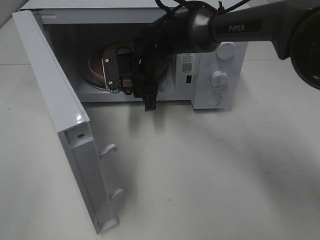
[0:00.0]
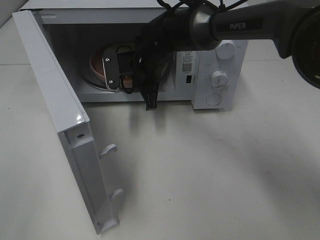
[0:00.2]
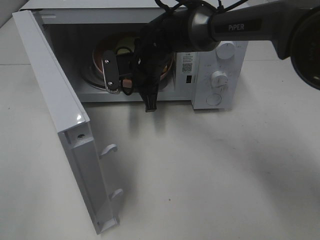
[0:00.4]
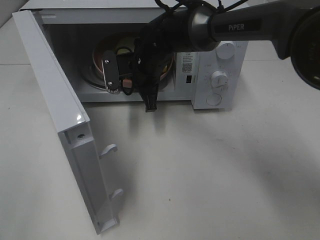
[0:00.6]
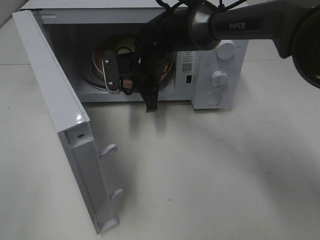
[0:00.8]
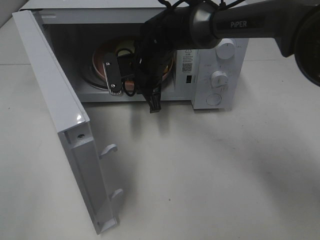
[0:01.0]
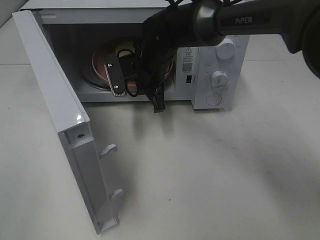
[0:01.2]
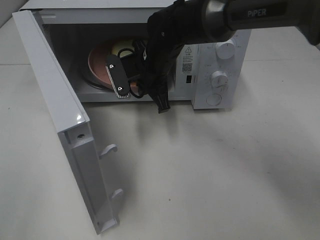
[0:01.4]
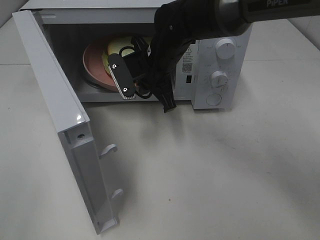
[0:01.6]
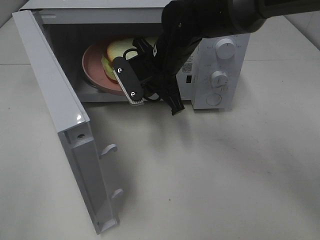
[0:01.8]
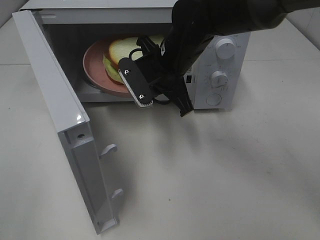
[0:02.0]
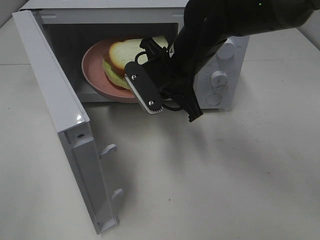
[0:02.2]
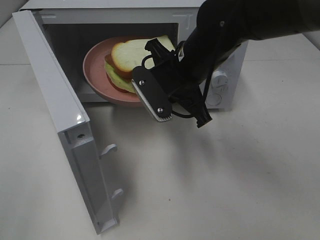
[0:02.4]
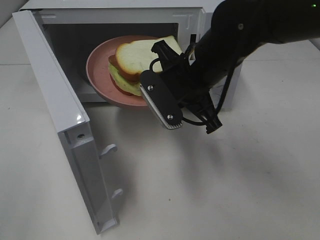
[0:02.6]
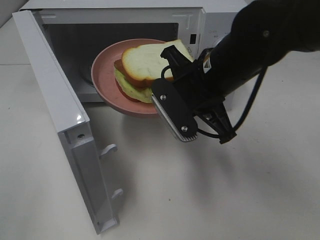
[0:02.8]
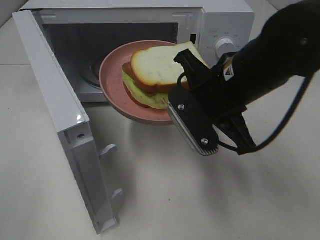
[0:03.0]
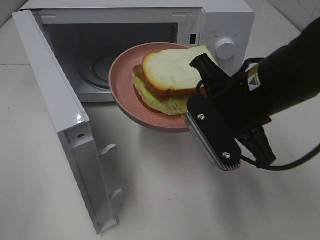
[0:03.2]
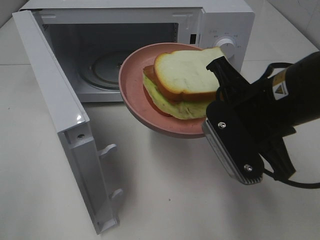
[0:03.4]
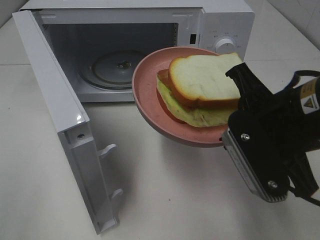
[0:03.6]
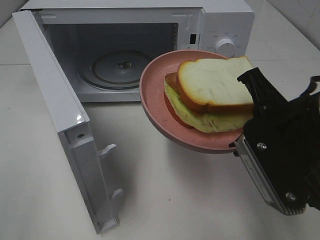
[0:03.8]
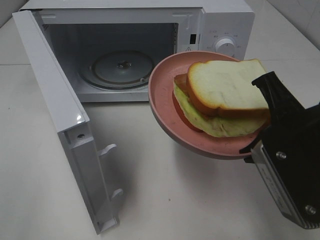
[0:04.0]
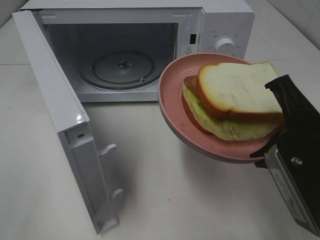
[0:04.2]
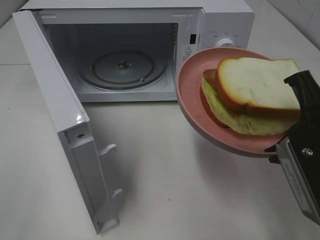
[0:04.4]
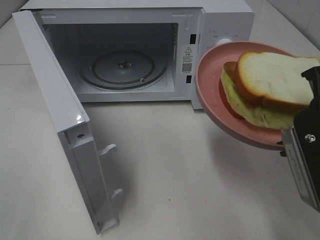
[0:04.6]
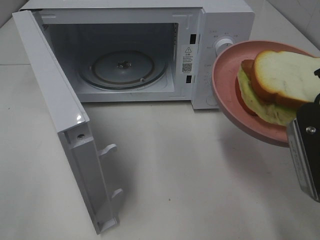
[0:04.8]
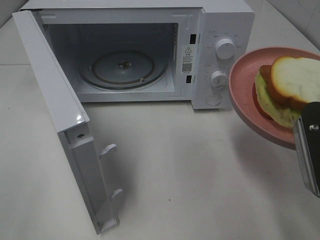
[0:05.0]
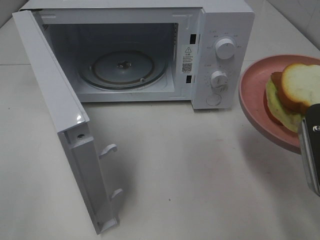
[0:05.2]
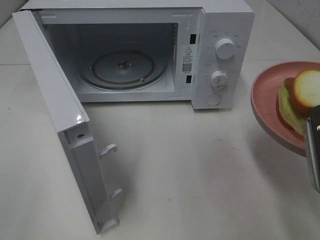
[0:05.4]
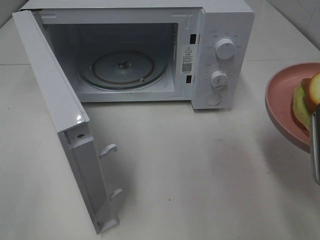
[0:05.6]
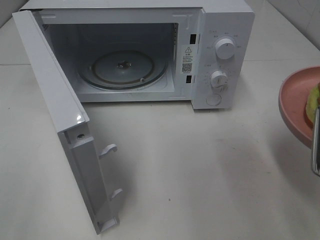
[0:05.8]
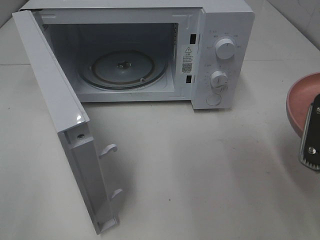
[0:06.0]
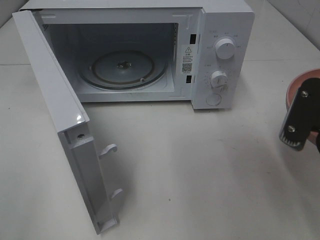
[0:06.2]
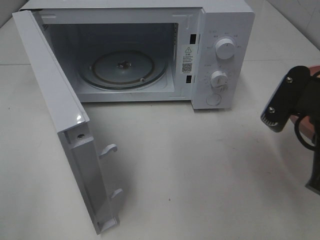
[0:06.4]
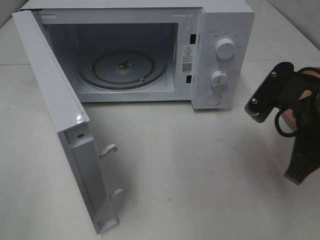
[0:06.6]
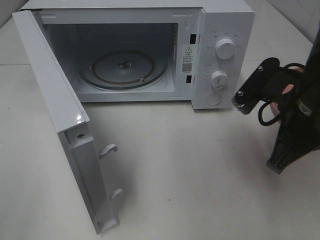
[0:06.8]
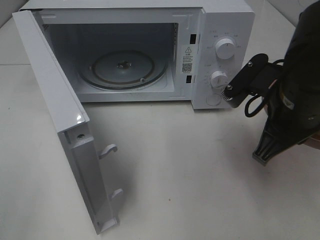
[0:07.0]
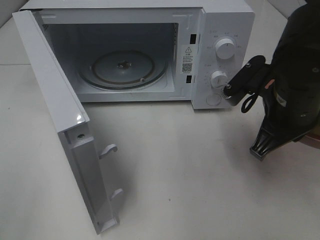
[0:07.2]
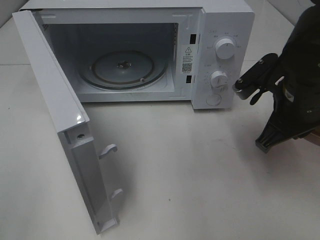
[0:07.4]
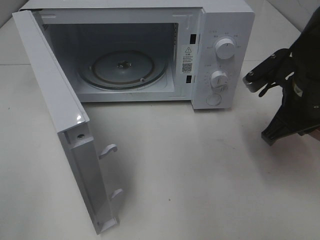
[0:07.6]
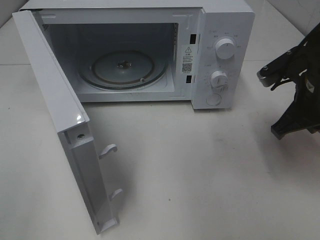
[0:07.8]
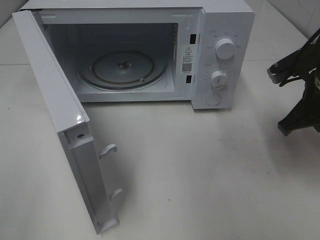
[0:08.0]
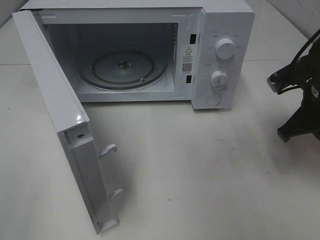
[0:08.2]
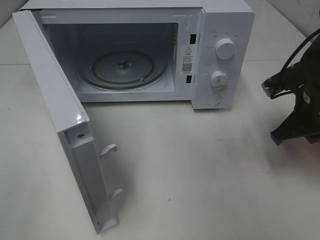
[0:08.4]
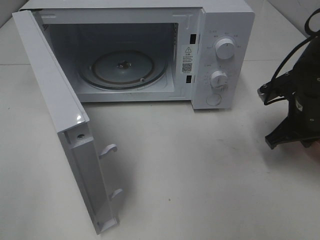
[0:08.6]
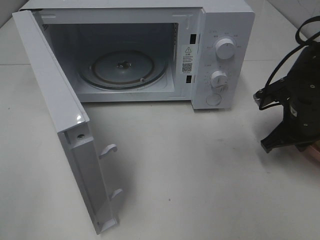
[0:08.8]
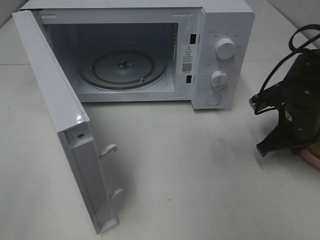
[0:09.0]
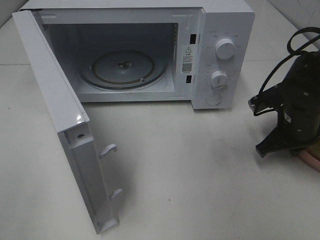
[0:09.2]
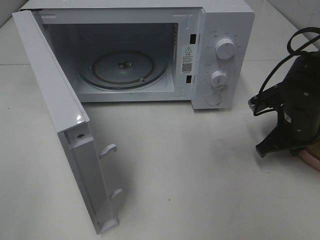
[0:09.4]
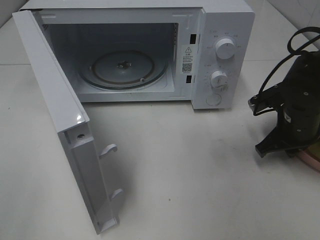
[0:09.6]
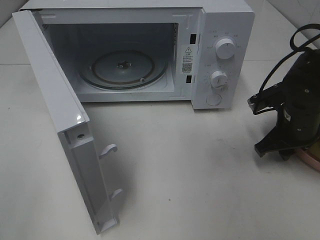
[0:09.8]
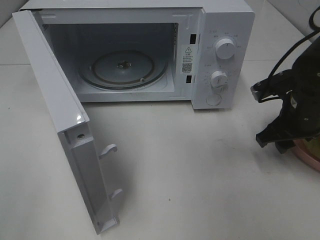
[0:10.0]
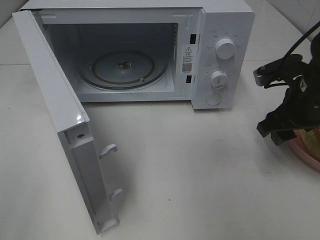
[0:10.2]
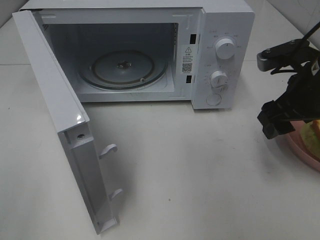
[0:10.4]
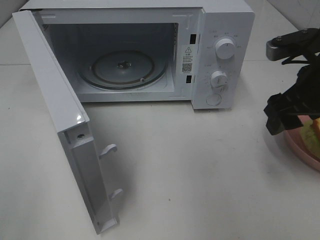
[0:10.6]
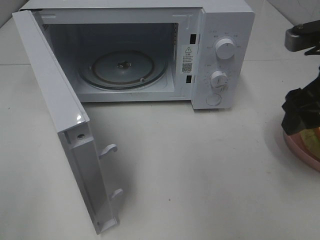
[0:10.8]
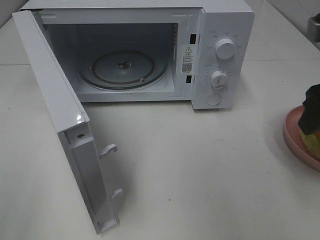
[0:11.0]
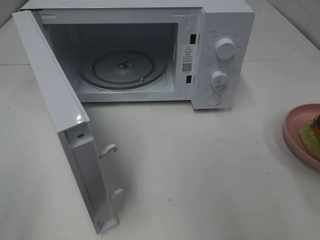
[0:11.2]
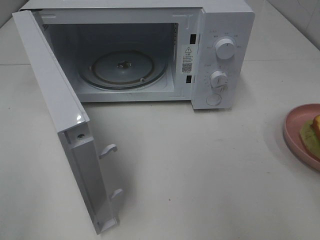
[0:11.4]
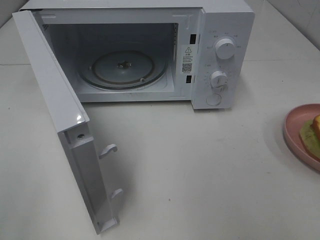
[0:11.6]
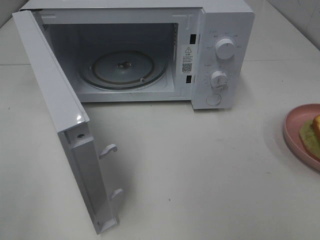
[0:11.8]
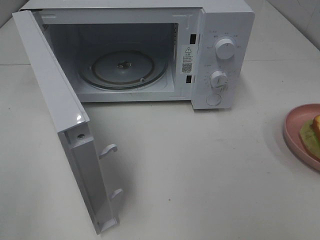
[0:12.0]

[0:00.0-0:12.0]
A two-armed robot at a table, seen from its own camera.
Task of the whole recording: Heat Sandwich.
Step, 0:00.8 to 0:09.8: Right hand: place the plate on the table.
0:00.0 to 0:01.6: The right gripper shifts by about 5 cm, and closes its fingers.
0:01.6 to 0:03.0: The right gripper heads backward and to the right, covering some 15 cm.
0:03.0 to 0:04.4: The right gripper moves backward and to the right, some 15 cm.
0:06.0 to 0:07.6: The right gripper travels forward by about 15 cm.
0:07.6 to 0:09.0: The right gripper travels downward by approximately 10 cm.
0:09.0 to 0:10.4: The right gripper goes approximately 10 cm upward, and opens up.
0:10.4 to 0:12.0: The right gripper heads backward and upward, covering roughly 25 cm.

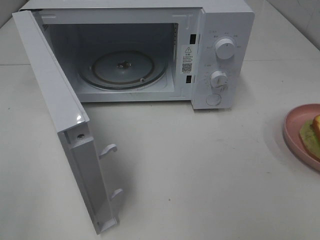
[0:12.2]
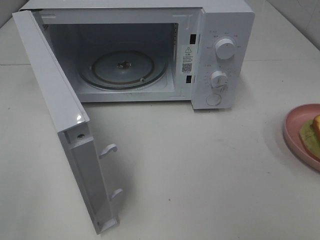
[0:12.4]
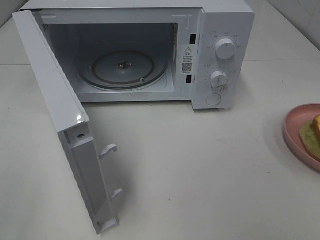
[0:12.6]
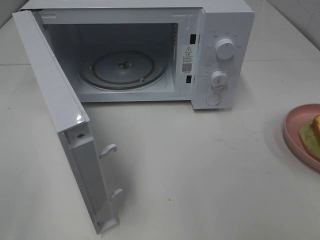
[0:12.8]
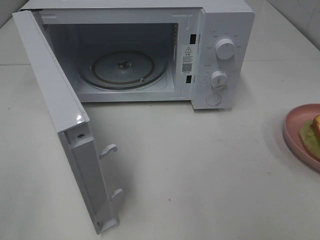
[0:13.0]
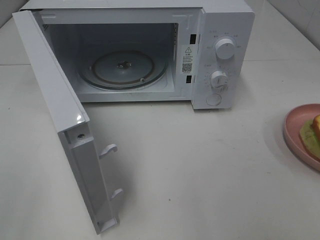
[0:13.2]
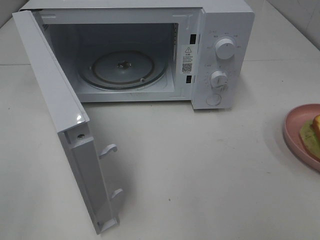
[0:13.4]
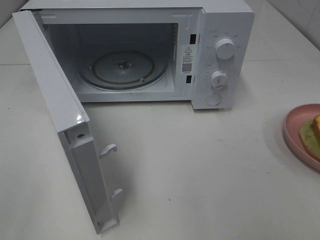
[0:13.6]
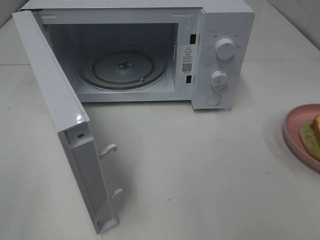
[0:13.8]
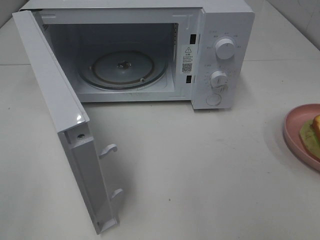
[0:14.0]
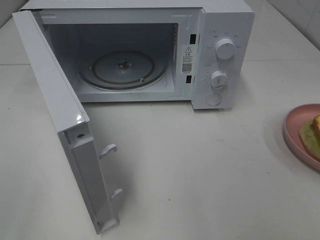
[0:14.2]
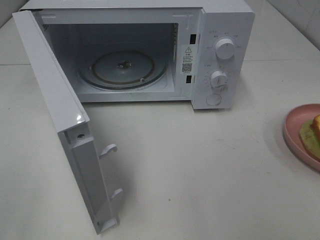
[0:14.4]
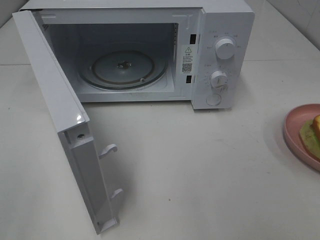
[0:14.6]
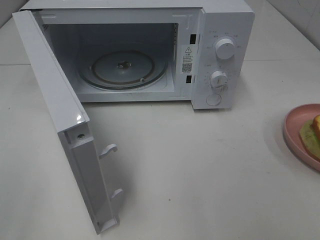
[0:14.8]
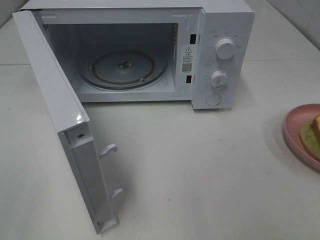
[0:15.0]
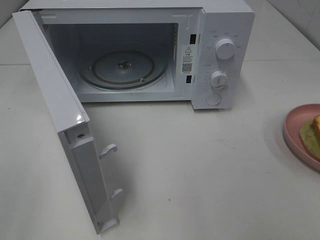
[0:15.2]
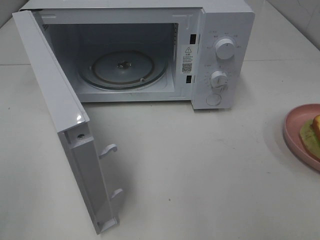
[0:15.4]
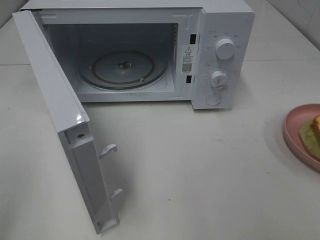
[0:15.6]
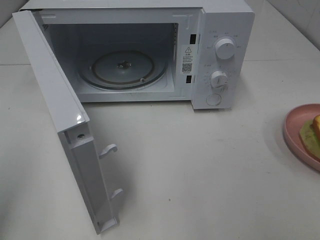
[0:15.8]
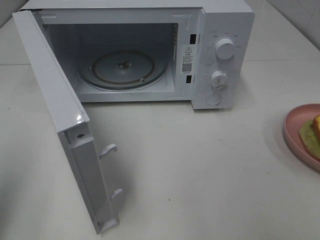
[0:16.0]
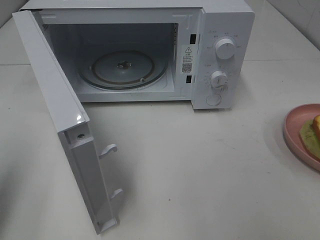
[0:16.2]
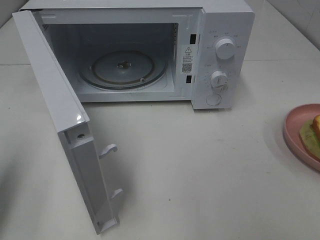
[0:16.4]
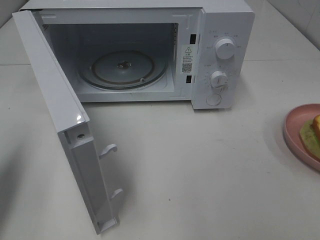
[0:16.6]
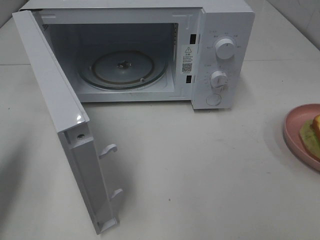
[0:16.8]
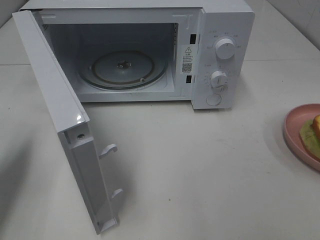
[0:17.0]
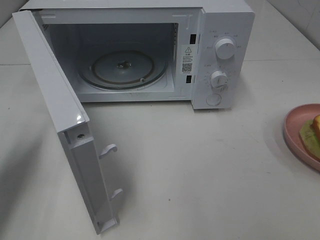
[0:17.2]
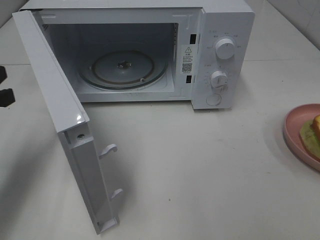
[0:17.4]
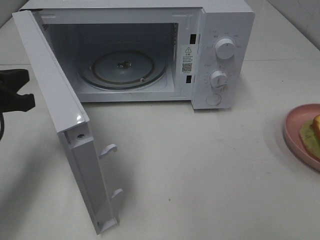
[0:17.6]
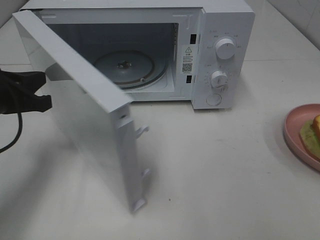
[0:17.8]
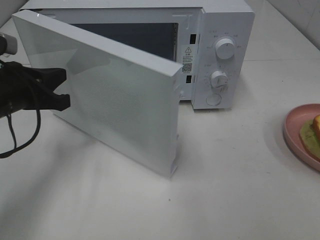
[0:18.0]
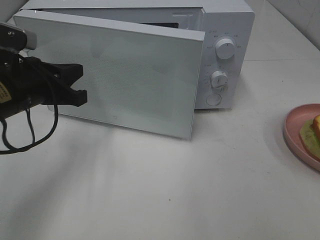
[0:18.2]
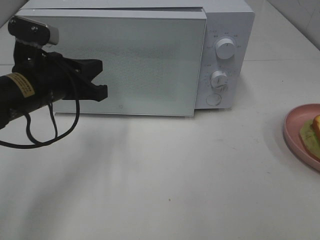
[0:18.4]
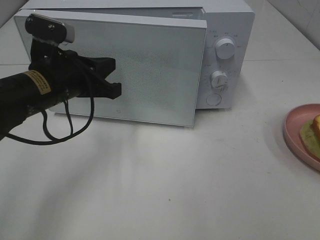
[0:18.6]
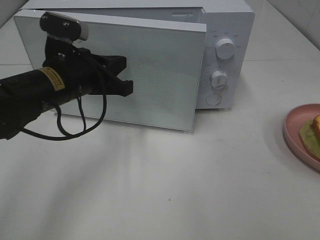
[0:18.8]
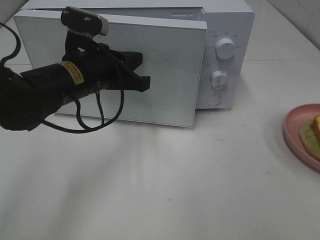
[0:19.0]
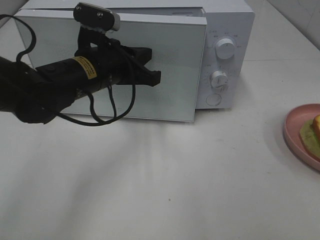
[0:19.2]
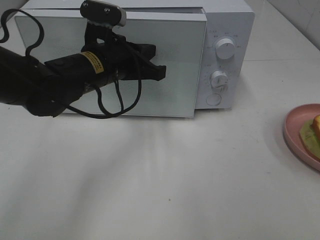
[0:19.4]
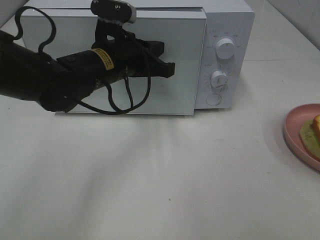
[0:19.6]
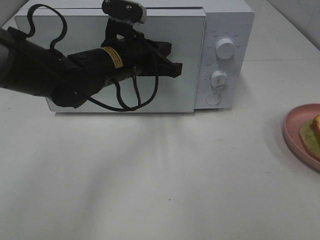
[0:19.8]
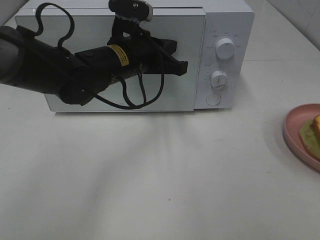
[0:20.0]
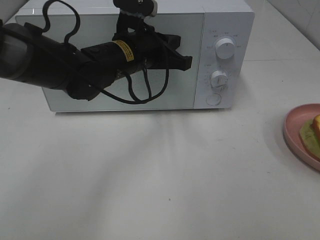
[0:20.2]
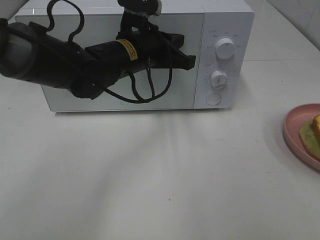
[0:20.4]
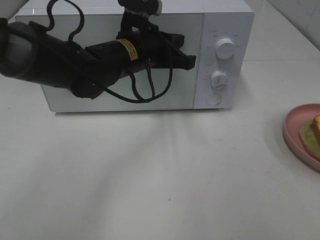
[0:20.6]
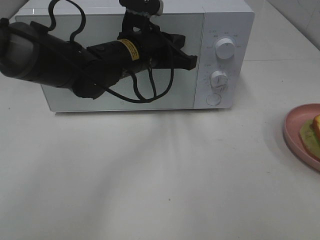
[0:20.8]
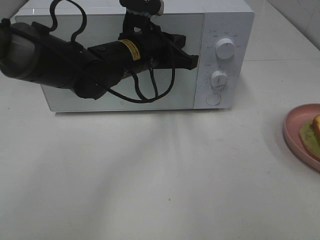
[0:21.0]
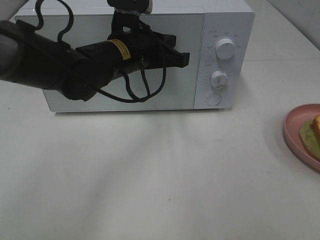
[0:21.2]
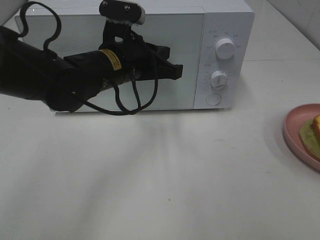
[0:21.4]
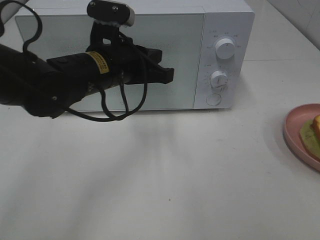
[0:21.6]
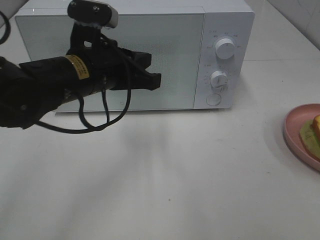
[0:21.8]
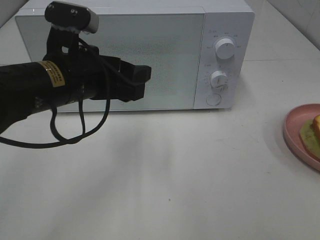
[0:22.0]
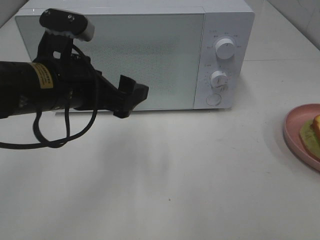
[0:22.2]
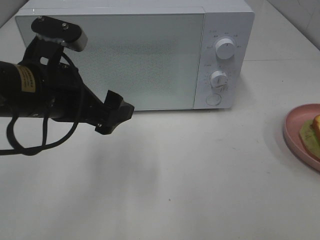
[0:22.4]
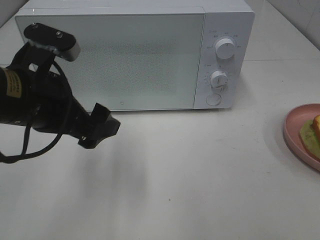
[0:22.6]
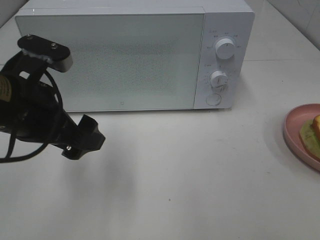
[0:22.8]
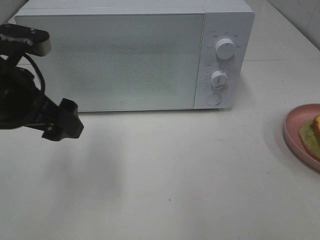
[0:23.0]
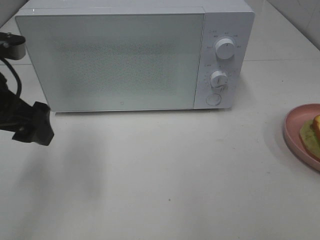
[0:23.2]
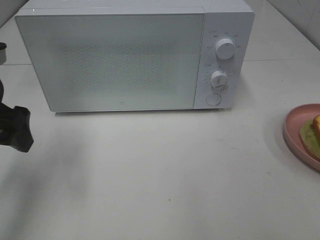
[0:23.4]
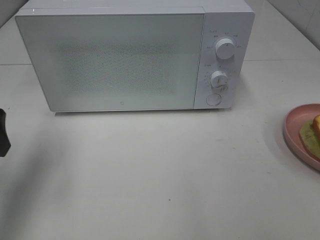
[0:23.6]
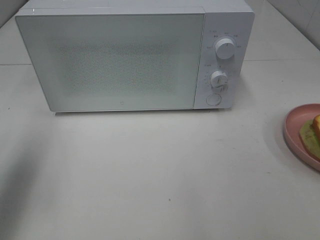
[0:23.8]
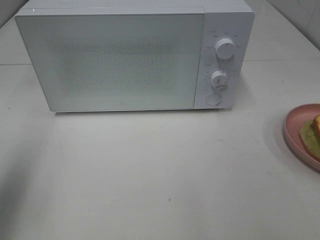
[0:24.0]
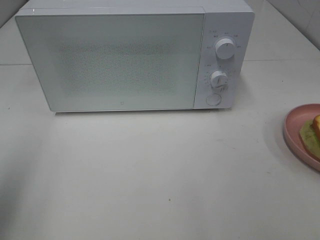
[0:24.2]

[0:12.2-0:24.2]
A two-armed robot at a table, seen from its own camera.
Task of the whole recording: Heat Sandwich.
Step, 0:12.2 to 0:21.0: Left hand: close the microwave door.
0:13.8 to 0:15.2: Neither gripper changes place.
0:15.2 to 0:16.6: The left gripper goes roughly 15 cm forward, and closes.
0:16.6 to 0:18.2: The left gripper heads to the right, forward and downward, covering roughly 20 cm.
0:18.2 to 0:19.8: The left gripper goes some 15 cm to the right and forward.
0:19.8 to 0:21.2: The grippers make only small movements.
0:21.2 to 0:22.6: The left gripper is displaced backward and to the left by approximately 15 cm, and opens.
0:22.6 to 0:24.2: The left gripper is displaced to the left, backward and upward by about 20 cm.
